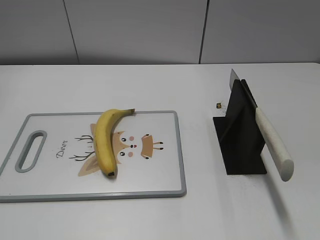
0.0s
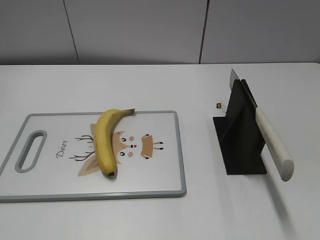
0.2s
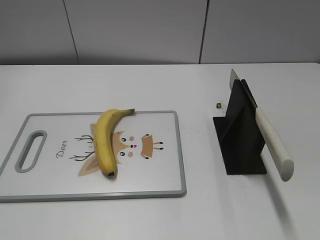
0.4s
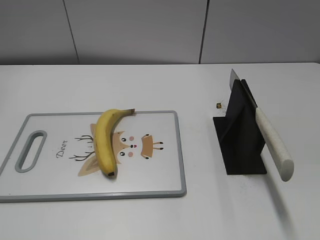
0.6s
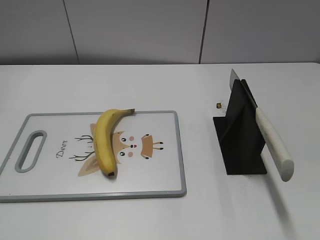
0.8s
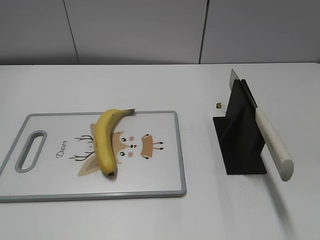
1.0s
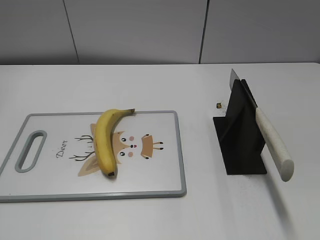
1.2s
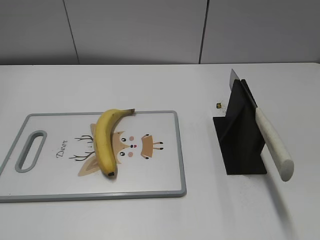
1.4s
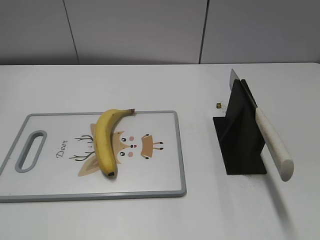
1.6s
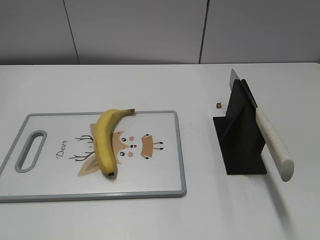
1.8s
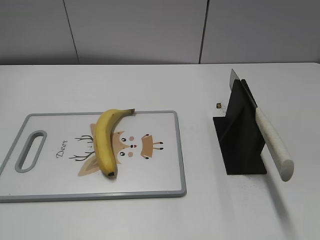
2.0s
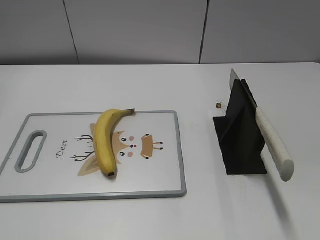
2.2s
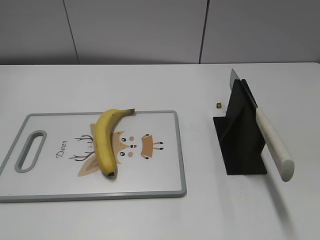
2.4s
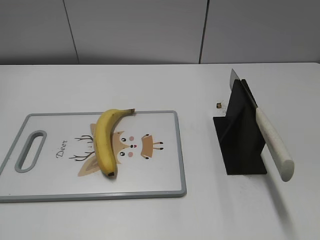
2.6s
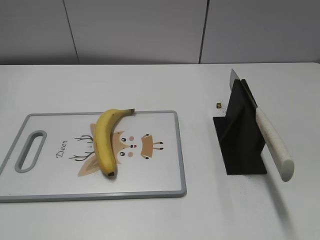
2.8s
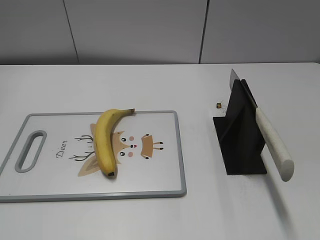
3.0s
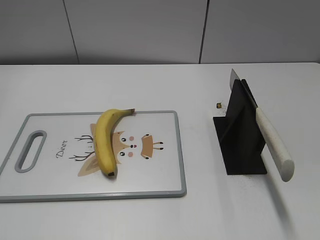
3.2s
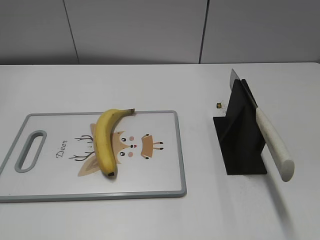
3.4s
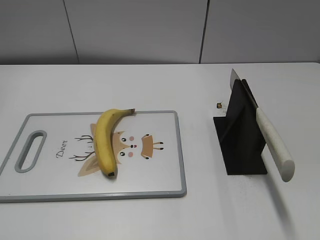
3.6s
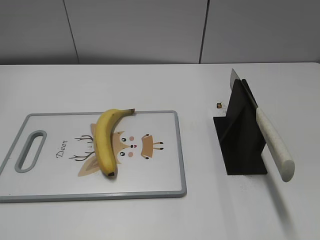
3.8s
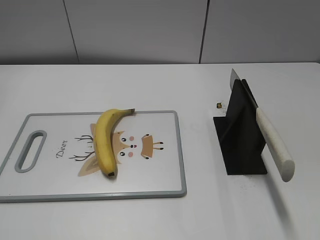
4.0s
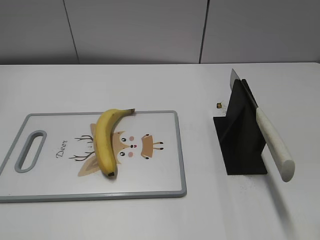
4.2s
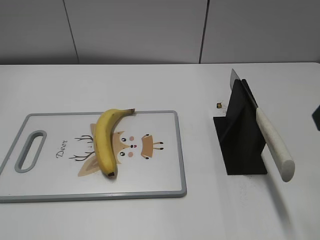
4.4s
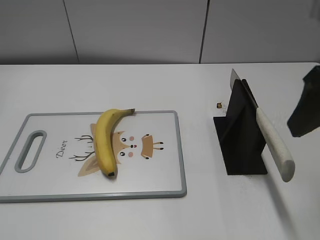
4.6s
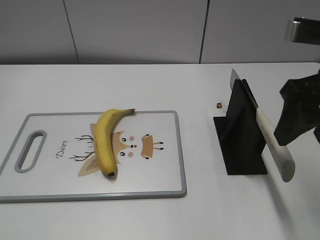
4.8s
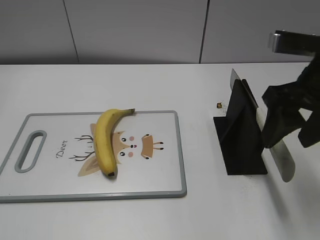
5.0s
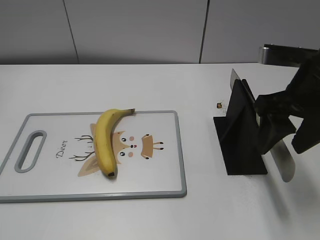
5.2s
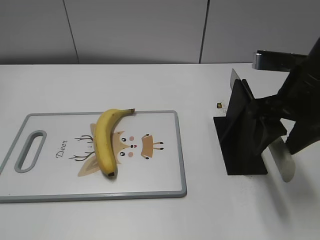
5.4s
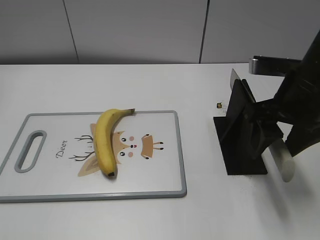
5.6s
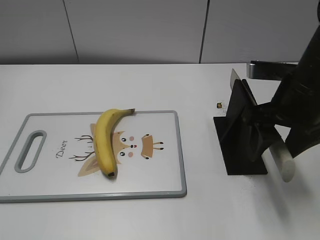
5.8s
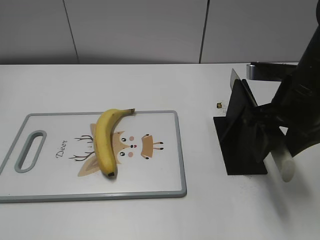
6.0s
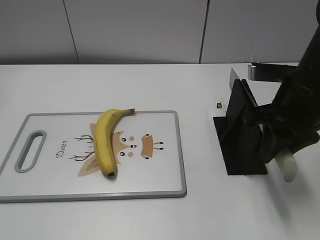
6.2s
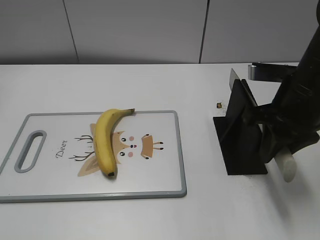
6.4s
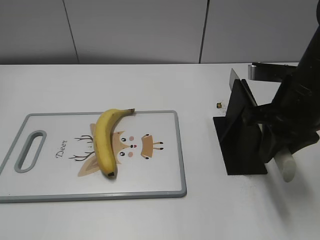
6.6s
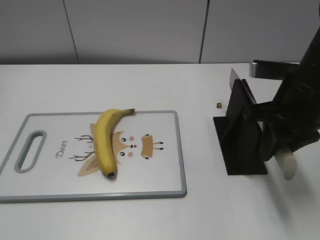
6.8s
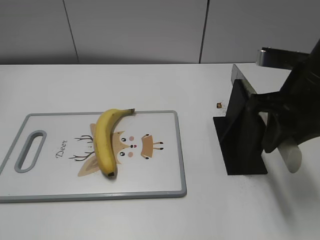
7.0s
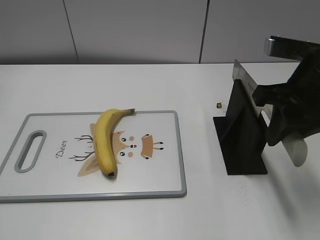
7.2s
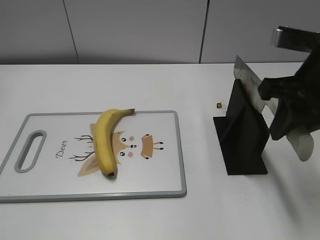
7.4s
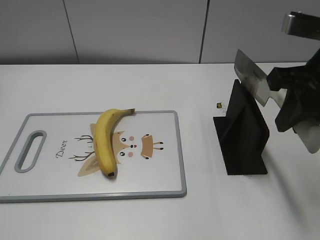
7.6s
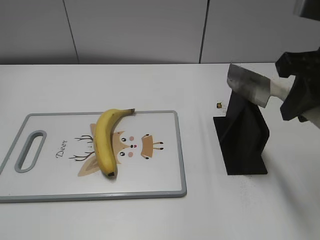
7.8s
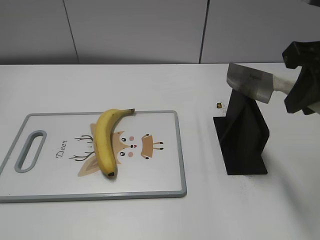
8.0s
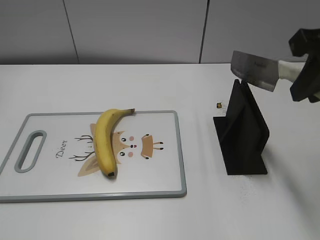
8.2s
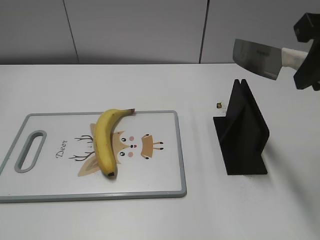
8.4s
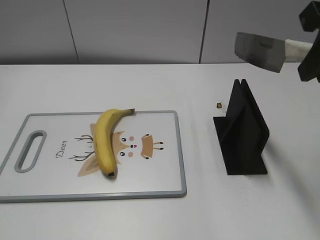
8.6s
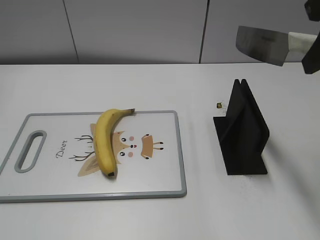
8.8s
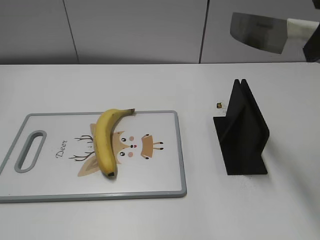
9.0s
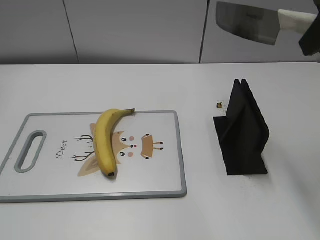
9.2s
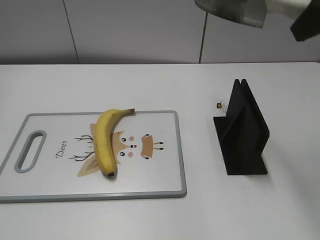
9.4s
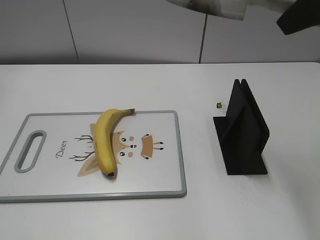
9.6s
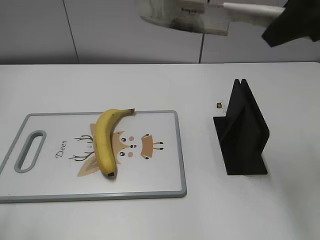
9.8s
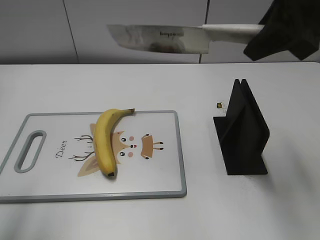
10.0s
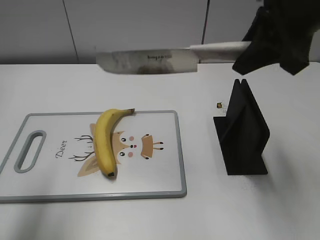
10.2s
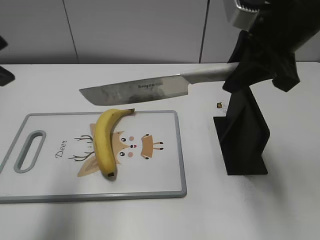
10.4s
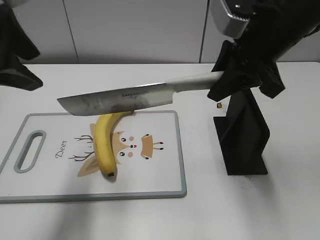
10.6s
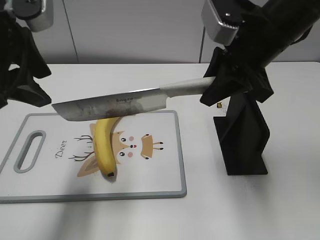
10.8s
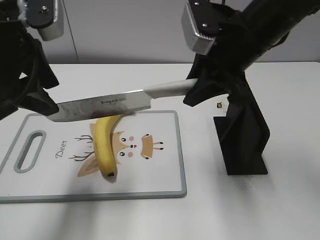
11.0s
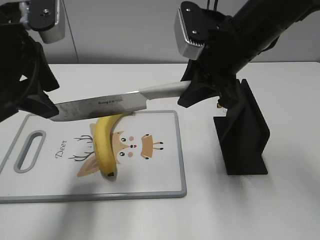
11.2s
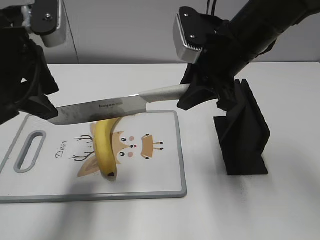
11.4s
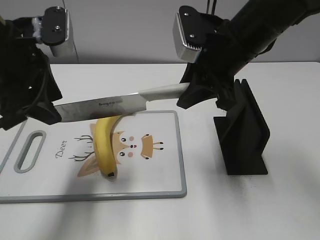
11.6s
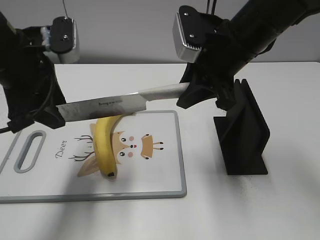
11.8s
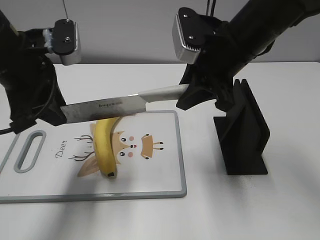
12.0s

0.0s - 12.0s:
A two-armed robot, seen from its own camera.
Task of the whole recording: cut banana.
Step, 0.0s - 7.8s: Grab the knife handle with your right hand.
4.4s - 6.0s: The right gripper goes approximately 15 cm downward and forward.
6.0s - 7.6s: The right gripper heads upward, covering approximately 5 cm, and closes its fingers.
7.6s - 9.0s: The right gripper heads upward, covering roughly 10 cm.
9.0s - 10.4s: The right gripper shifts roughly 10 cm downward and forward. Meanwhile the left gripper travels forward by roughly 20 cm.
10.4s - 12.0s: The right gripper moves downward and to the left, some 10 cm. Meanwhile the left gripper is displaced downward and forward by approximately 10 cm, and closes up.

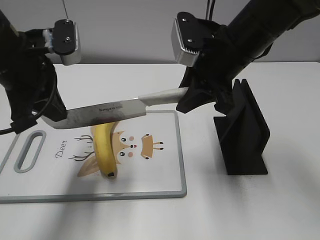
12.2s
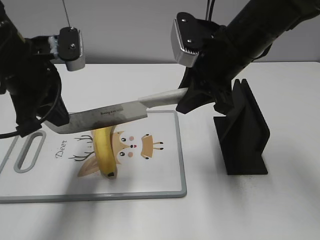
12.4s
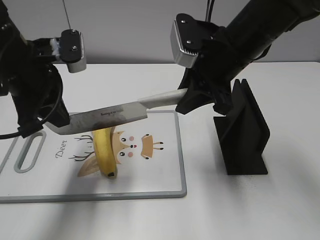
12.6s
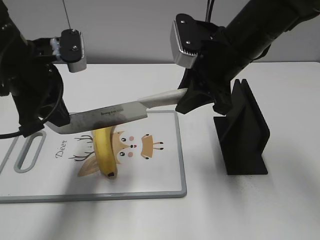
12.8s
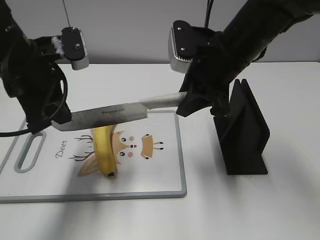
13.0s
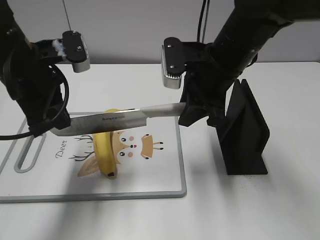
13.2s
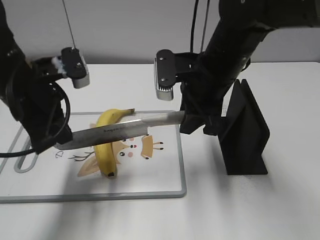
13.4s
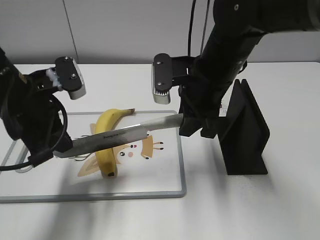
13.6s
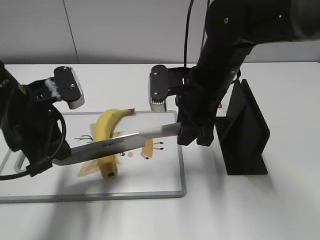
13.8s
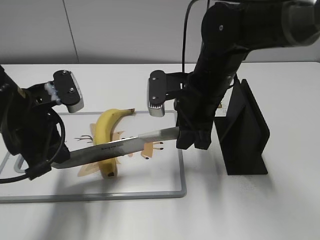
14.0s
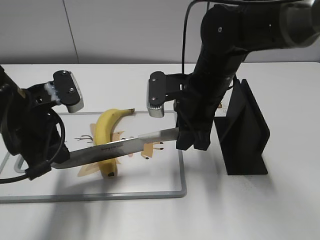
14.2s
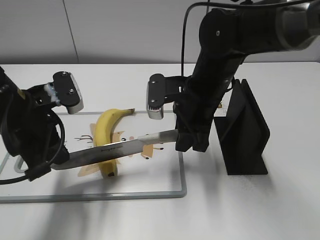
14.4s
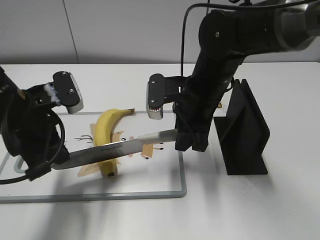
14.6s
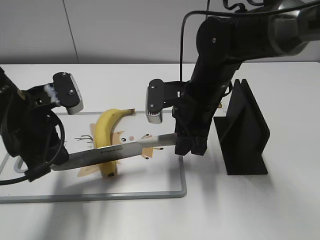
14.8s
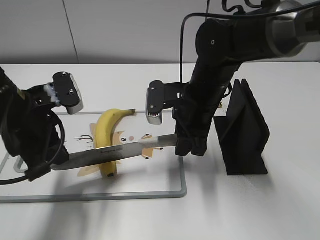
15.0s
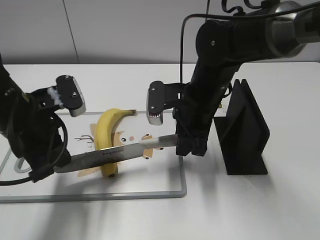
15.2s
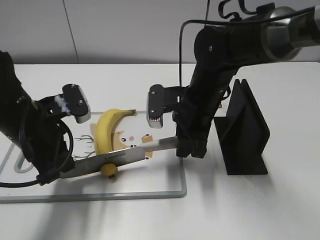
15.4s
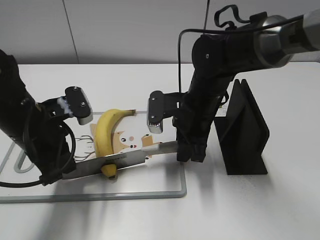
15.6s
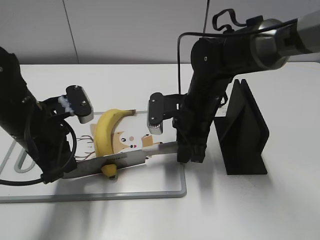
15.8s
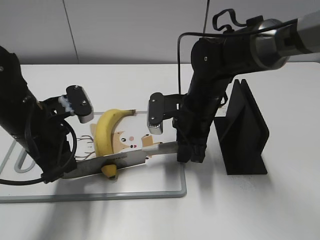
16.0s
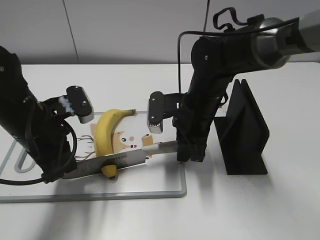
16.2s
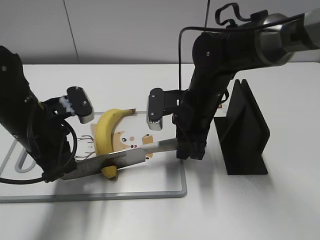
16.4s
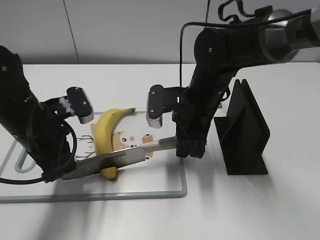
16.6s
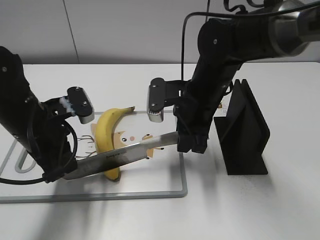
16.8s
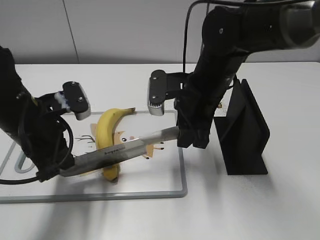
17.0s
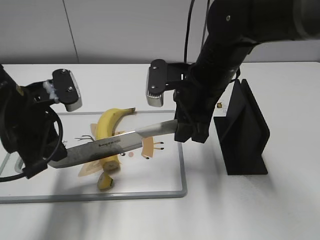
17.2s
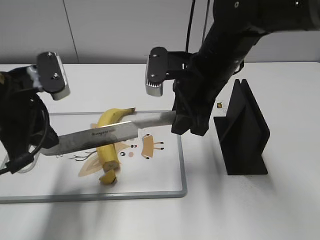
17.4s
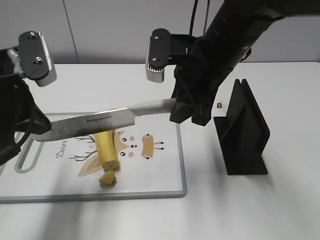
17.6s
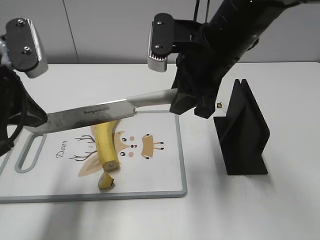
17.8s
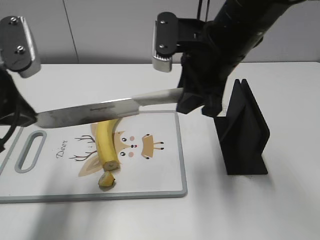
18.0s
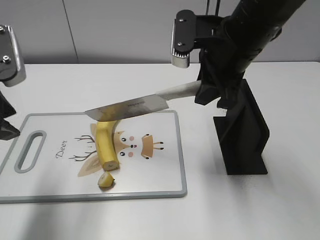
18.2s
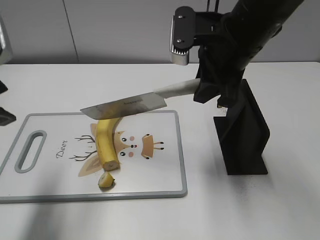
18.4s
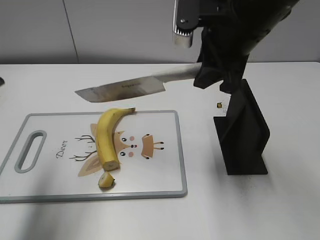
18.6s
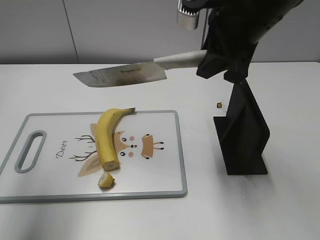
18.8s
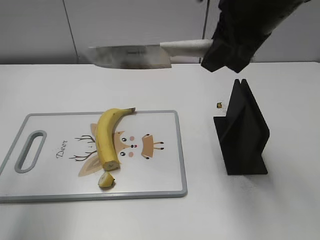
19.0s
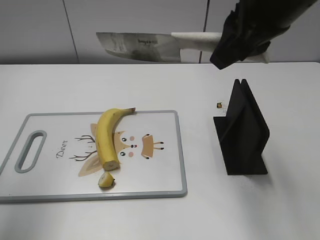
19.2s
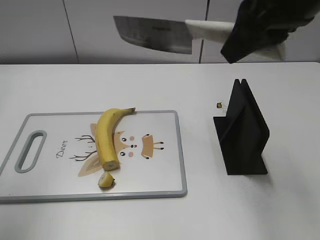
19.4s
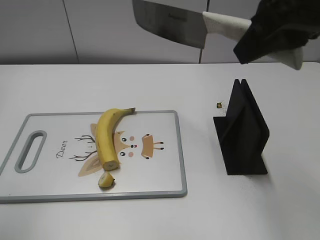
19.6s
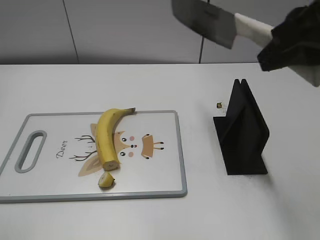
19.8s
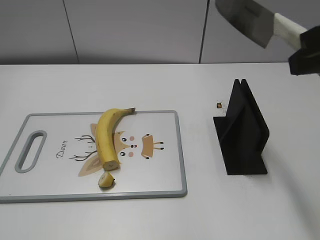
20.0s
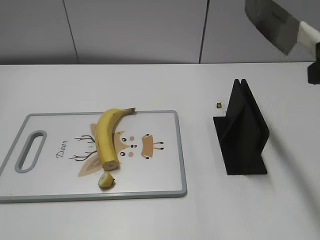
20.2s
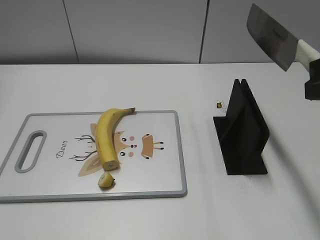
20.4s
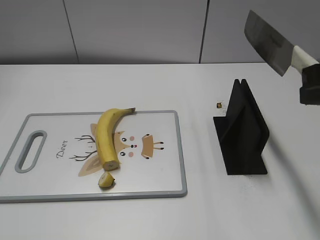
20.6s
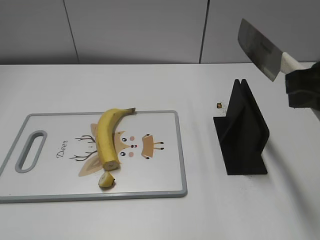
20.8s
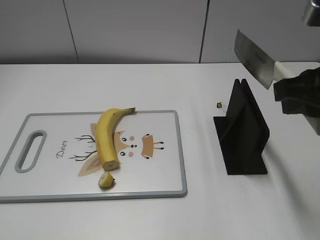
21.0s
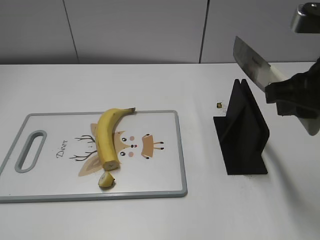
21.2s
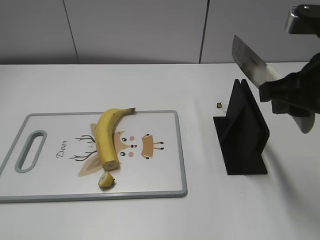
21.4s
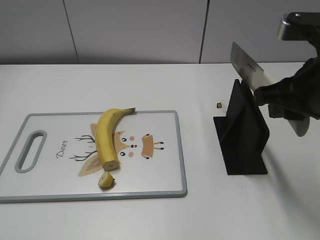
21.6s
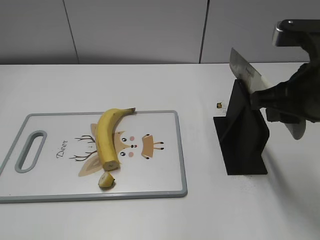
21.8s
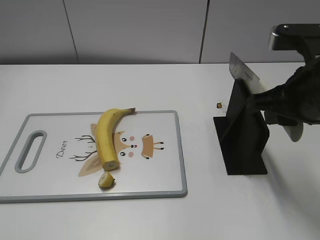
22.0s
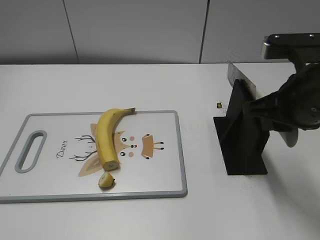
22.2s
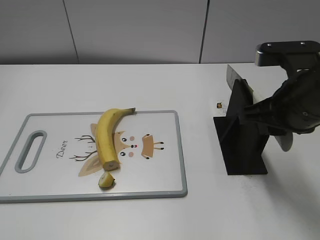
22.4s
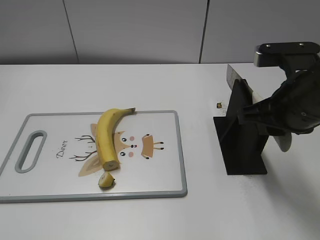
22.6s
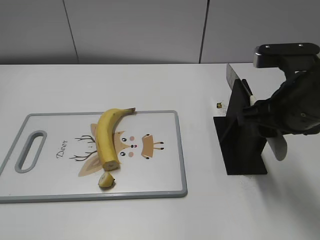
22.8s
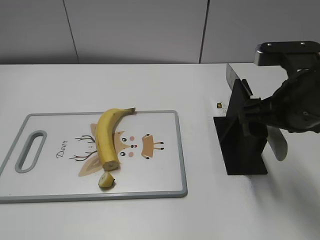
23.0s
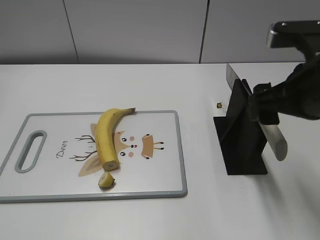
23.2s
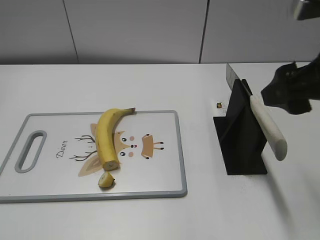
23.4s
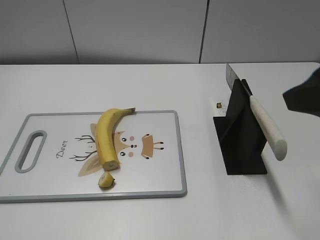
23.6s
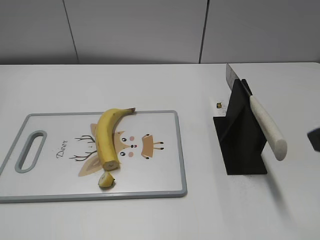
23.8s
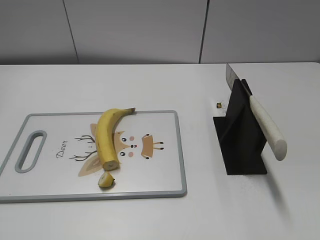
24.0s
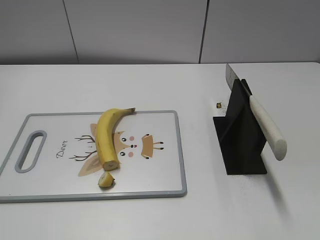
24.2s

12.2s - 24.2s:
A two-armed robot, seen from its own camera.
Task of the whole recording: cut banana.
Step, 12.2s - 15.2s: Lift the knife with your right hand.
Step, 15.4s - 20.2s: Cut the banana with your right hand.
Step, 20.4s - 22.4s: Lift the knife with your right hand.
12.2s - 13.8s: Both grippers move downward, about 5 cm.
13.8s - 15.2s: The grippers make only small movements.
15.2s - 16.6s: The grippers make only small movements.
16.6s - 18.2s: The left gripper shifts roughly 15 cm upward and backward, and opens, while the right gripper travels upward by some 10 cm.
18.2s - 19.8s: The left gripper is displaced backward, to the left and upward by roughly 15 cm, and opens. The right gripper is displaced backward, upward and to the right by about 15 cm.
19.8s - 21.2s: The left gripper shifts about 15 cm backward and downward, while the right gripper moves downward, some 10 cm.
21.2s - 22.6s: The right gripper goes roughly 5 cm downward.
22.6s - 24.2s: The right gripper goes about 20 cm backward and to the right, and opens.
